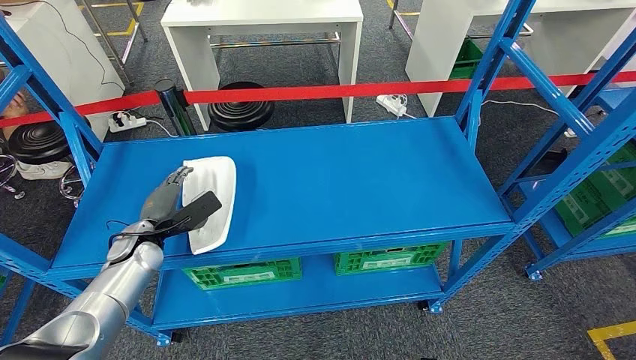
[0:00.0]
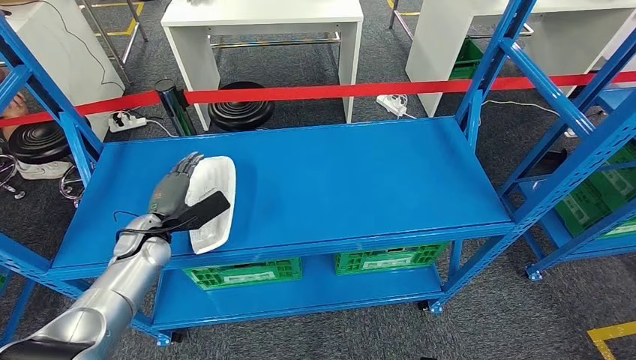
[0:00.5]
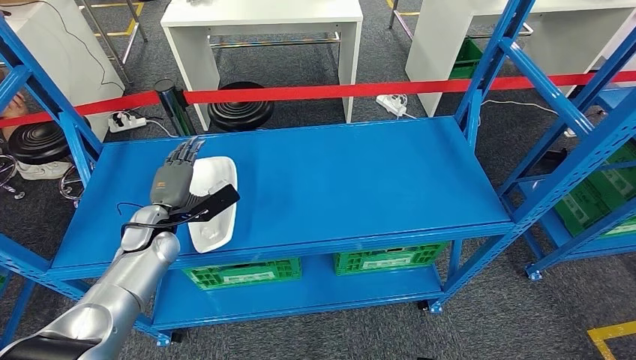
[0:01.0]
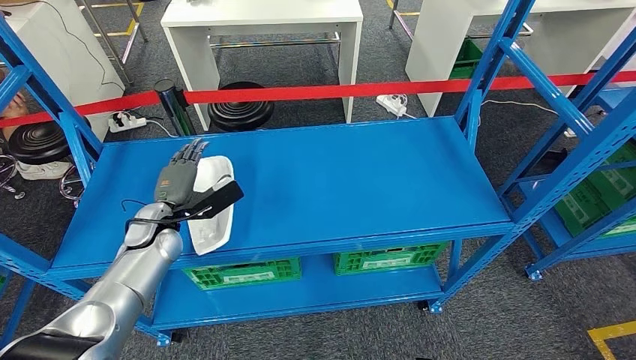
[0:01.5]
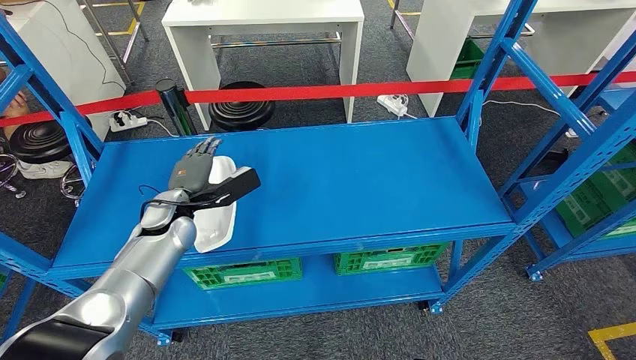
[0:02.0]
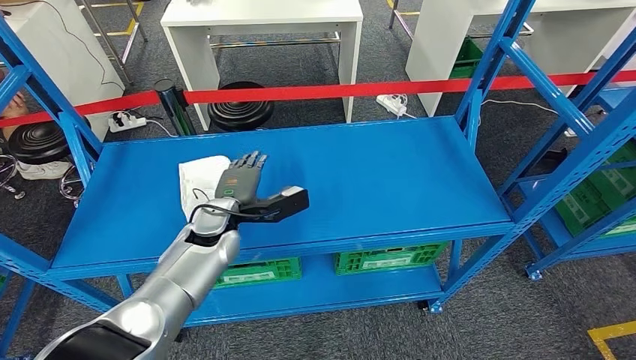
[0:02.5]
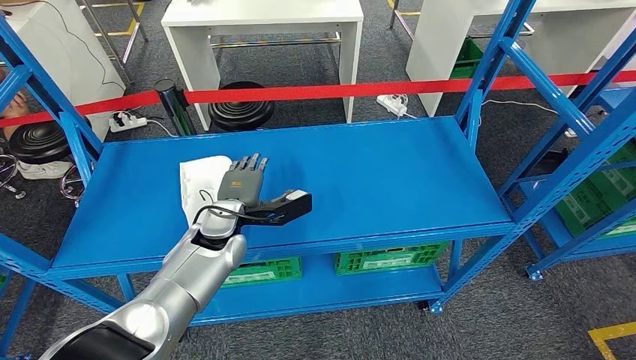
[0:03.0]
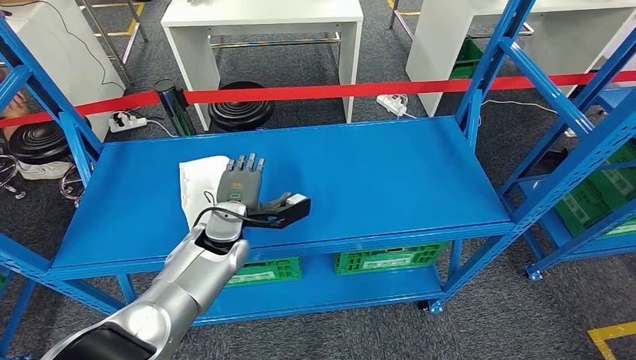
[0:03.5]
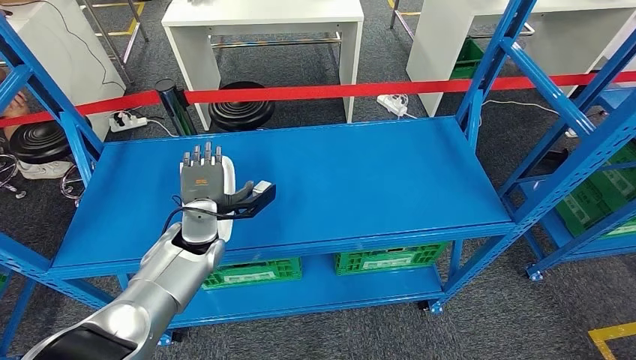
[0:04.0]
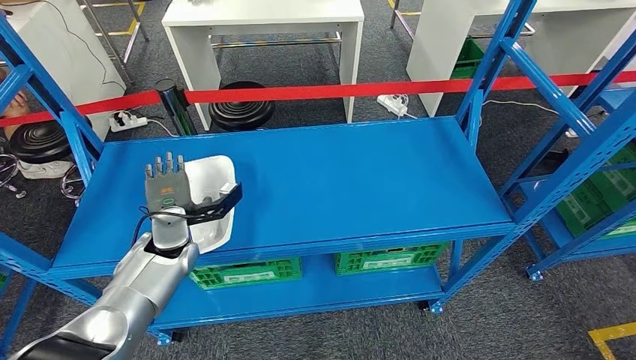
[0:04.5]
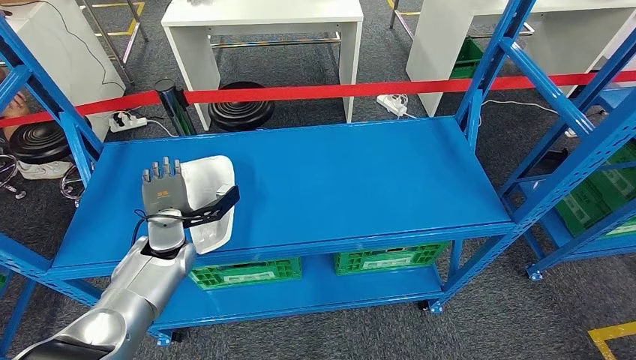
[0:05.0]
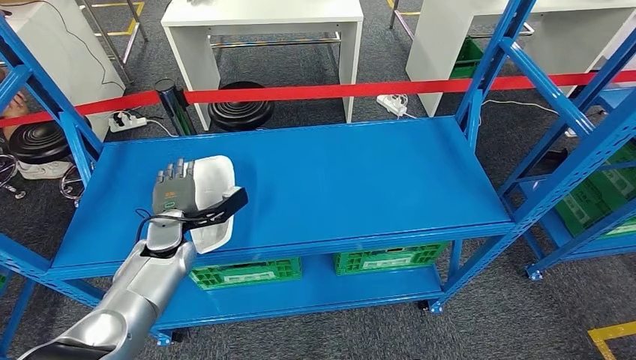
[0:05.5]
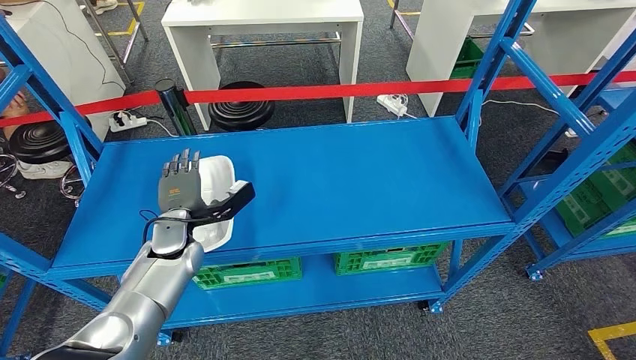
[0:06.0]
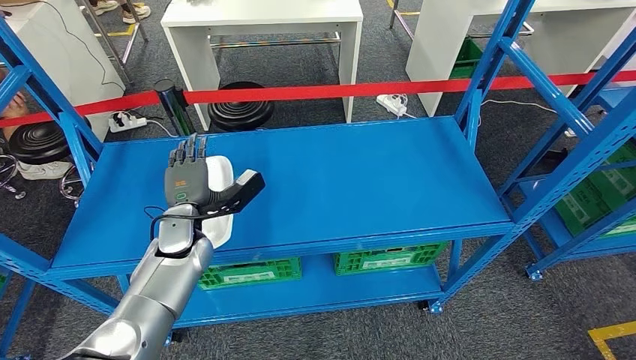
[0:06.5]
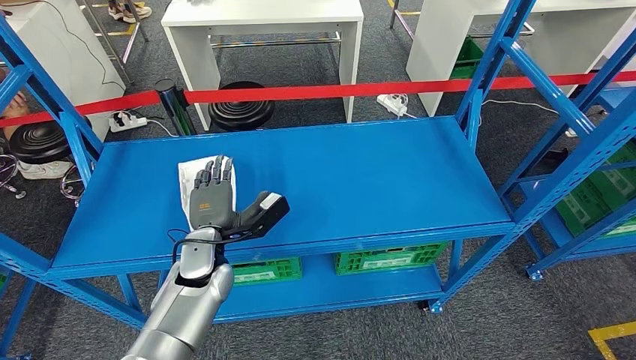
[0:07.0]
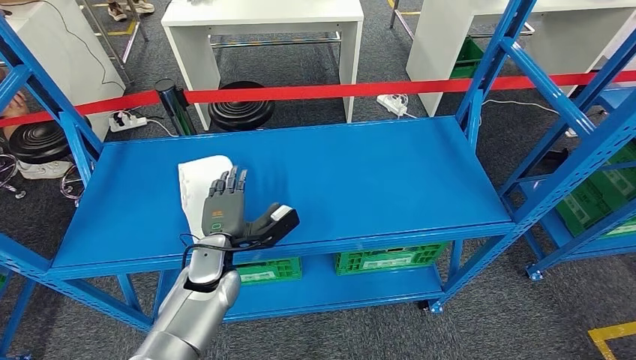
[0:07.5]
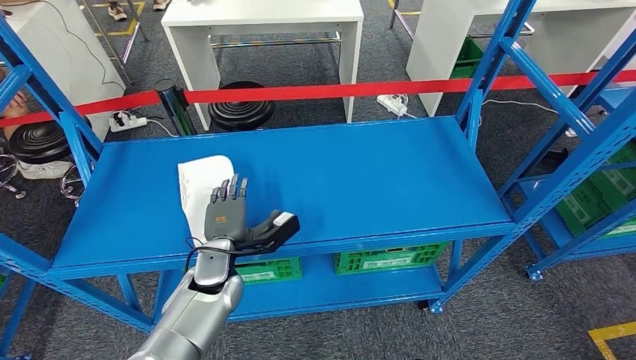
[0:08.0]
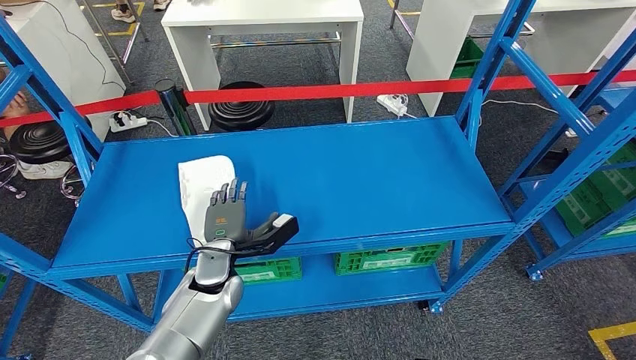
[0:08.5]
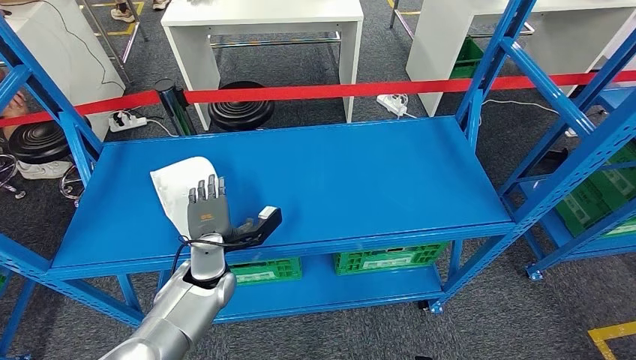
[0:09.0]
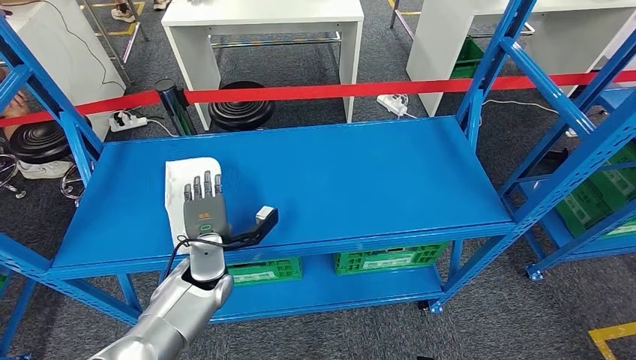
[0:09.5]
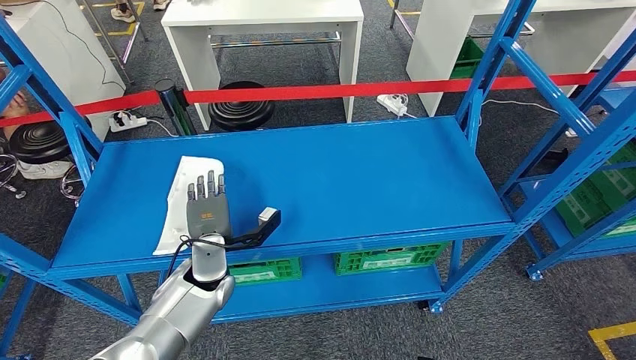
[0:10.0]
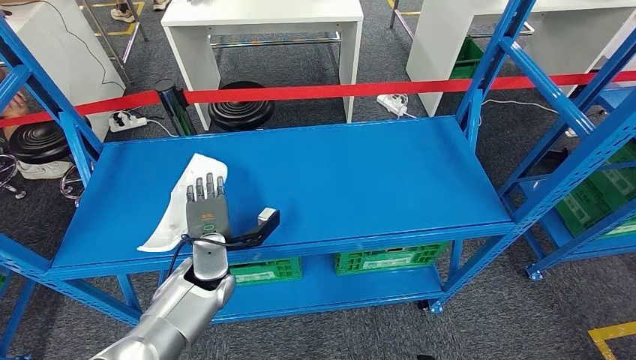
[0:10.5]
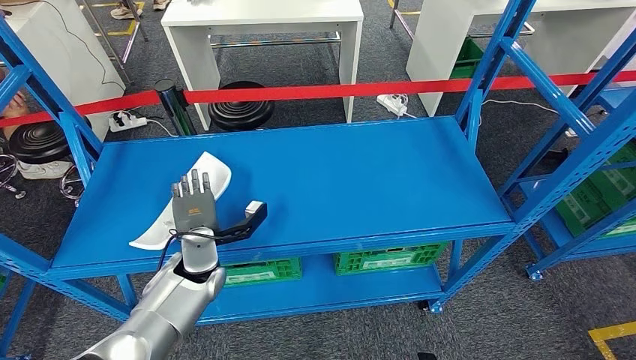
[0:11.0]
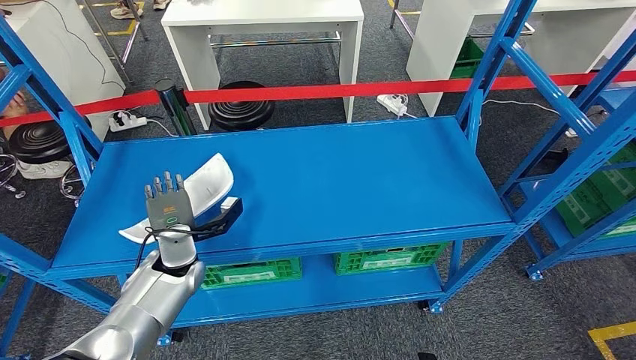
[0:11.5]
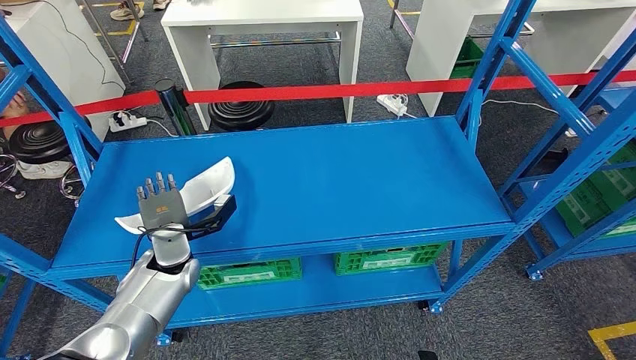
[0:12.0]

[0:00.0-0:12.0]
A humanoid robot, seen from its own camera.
0:00.0 to 0:02.0: The left hand goes roughly 10 cm to the right and upward.
0:02.0 to 0:04.0: The left hand is displaced to the right by about 5 cm.
0:06.0 to 0:08.0: The left hand travels to the right and backward by approximately 10 cm.
0:08.0 to 0:10.0: The hands make only small movements.
0:10.0 to 0:12.0: The left hand shifts about 5 cm to the left.

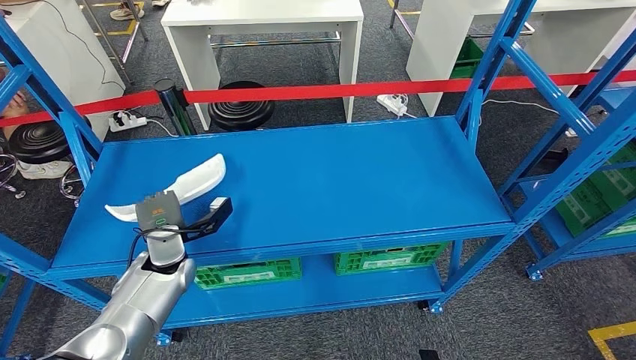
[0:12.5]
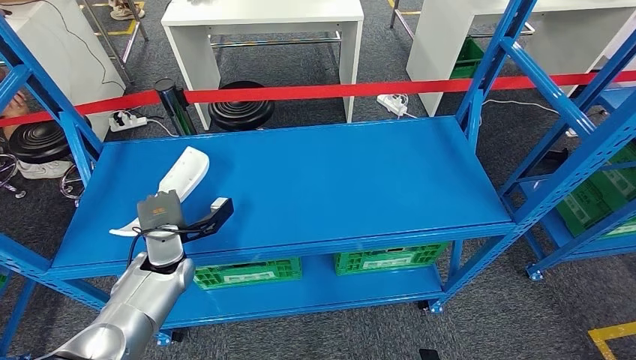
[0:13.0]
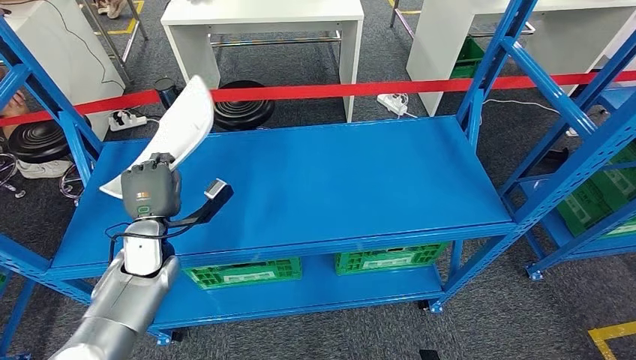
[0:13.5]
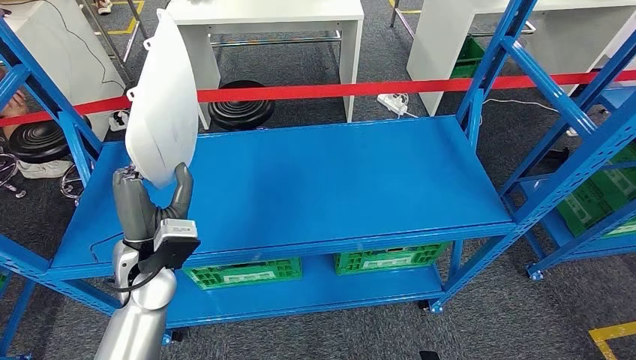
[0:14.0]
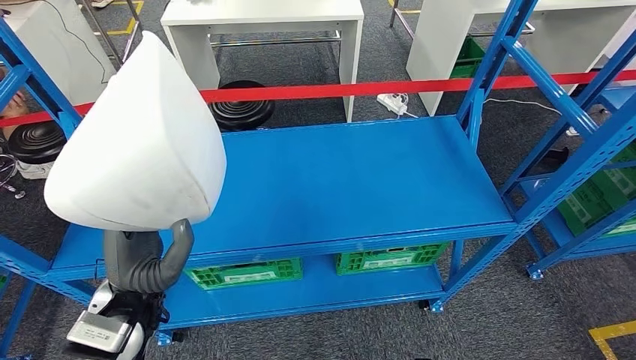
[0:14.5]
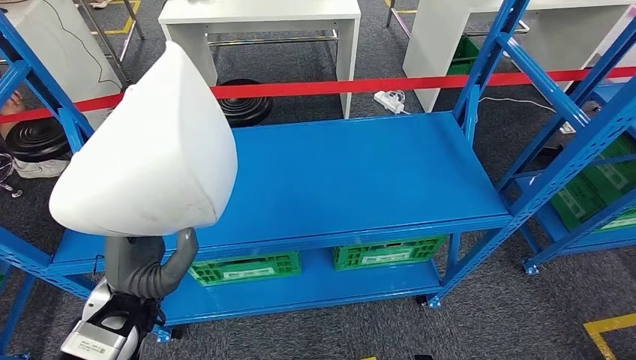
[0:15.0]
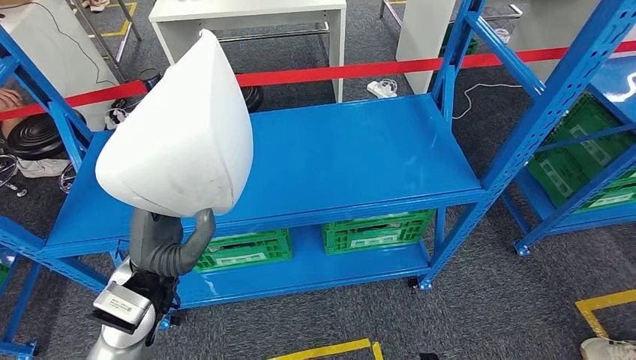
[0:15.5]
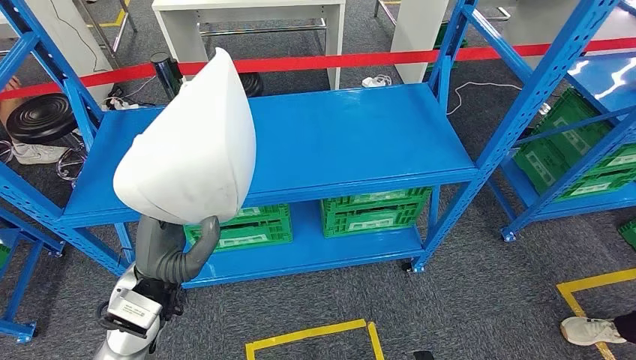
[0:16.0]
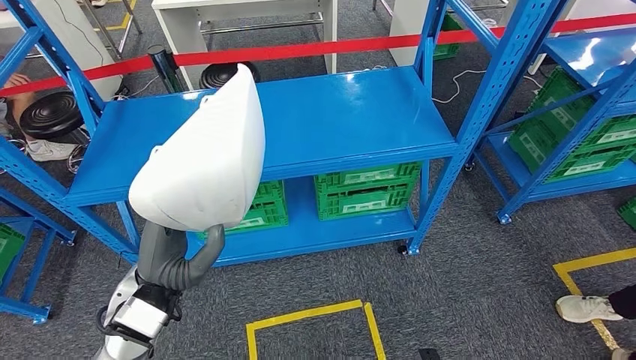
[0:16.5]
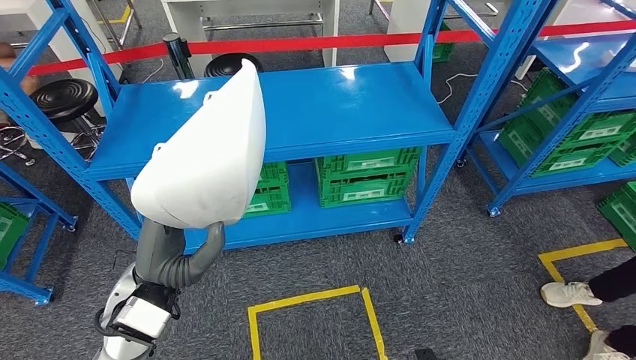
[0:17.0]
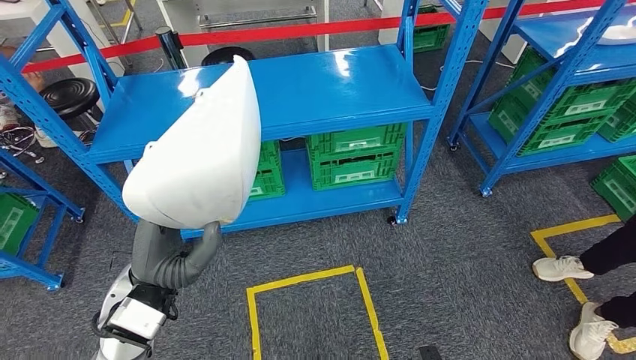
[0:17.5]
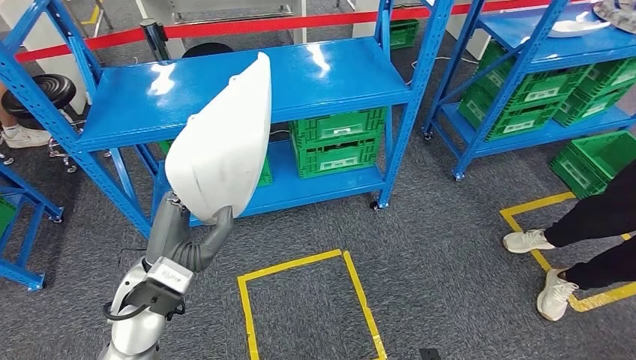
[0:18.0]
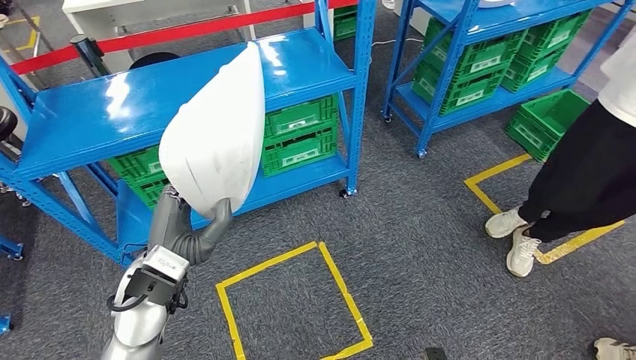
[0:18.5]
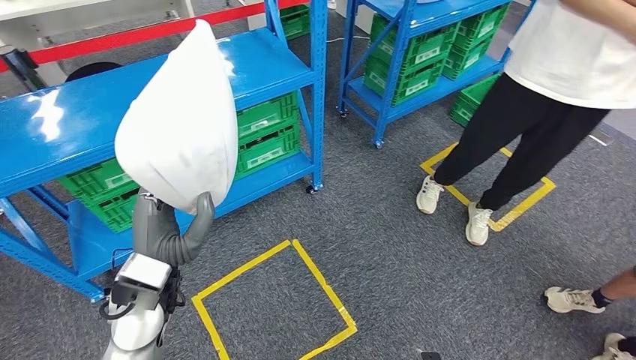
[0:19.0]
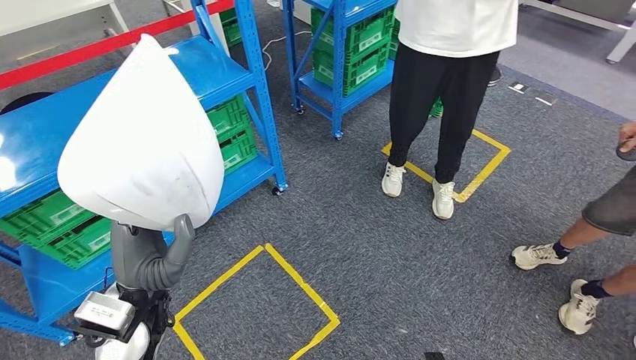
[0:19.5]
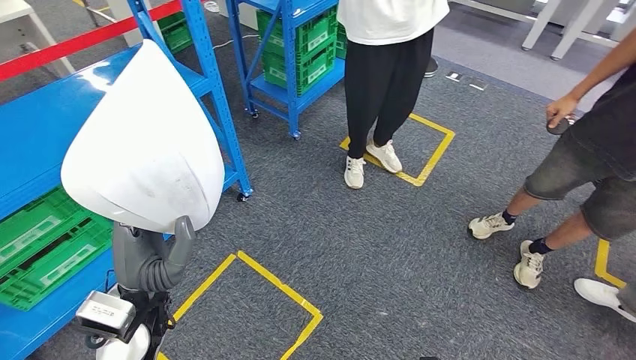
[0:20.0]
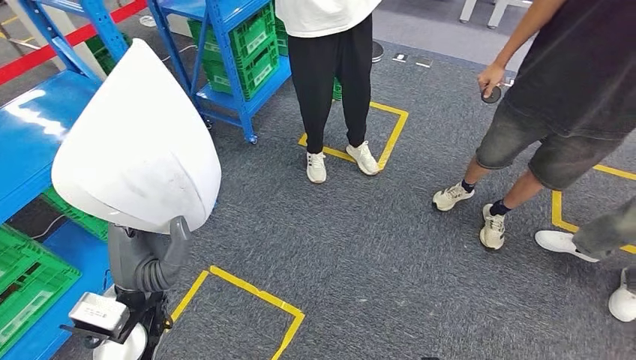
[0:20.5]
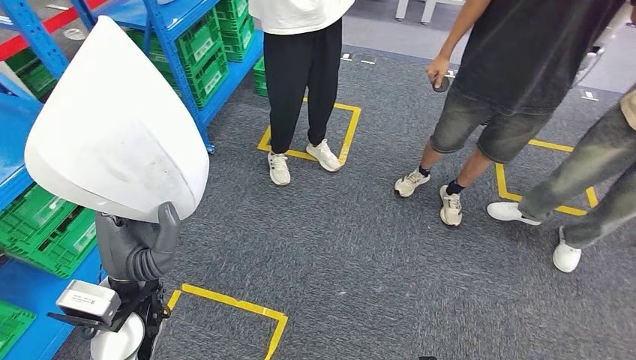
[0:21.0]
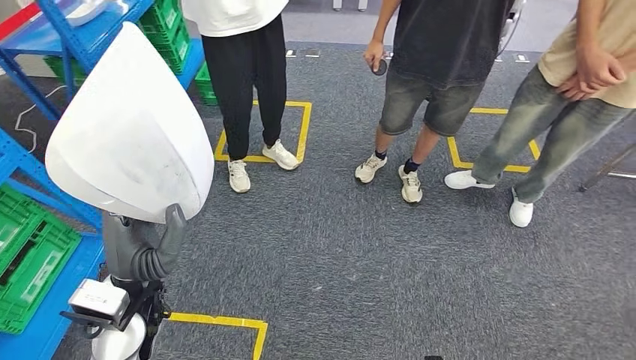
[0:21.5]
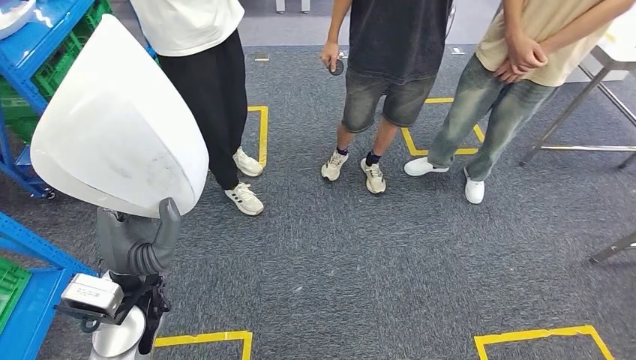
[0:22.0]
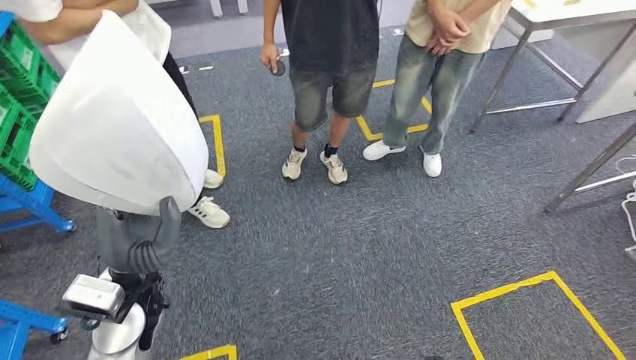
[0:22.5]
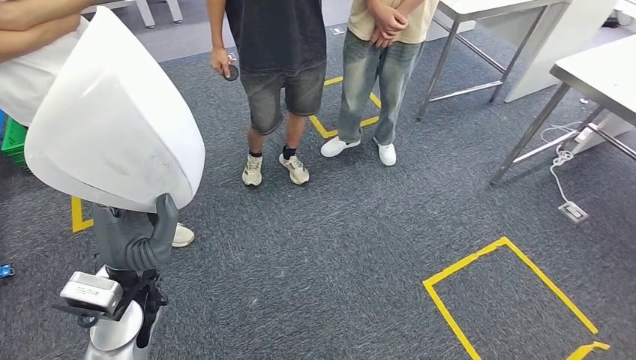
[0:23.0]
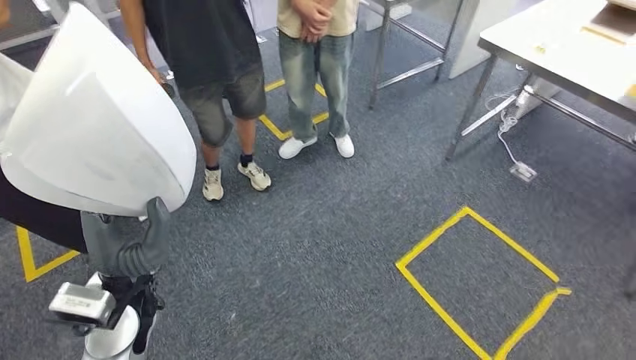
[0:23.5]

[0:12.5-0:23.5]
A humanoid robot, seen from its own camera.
Step, 0:12.5 to 0:14.5: Pick up the small parts from the shelf.
0:12.5 to 0:14.5: The left hand travels backward and upward by approximately 15 cm.
